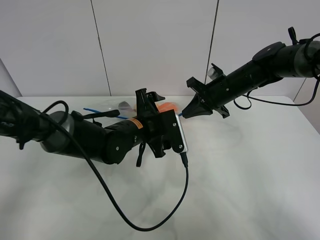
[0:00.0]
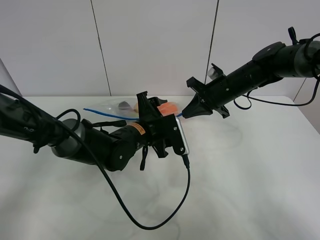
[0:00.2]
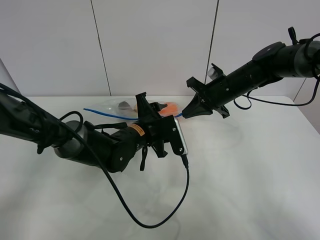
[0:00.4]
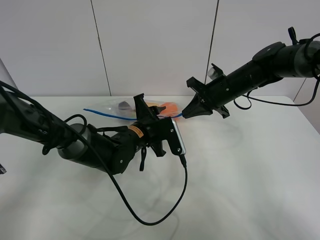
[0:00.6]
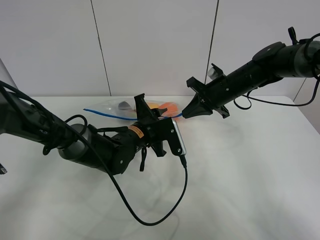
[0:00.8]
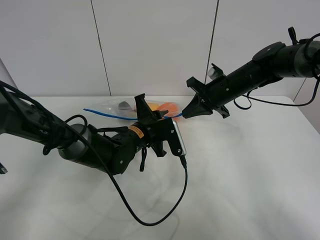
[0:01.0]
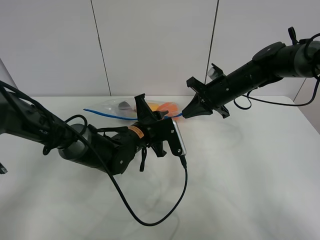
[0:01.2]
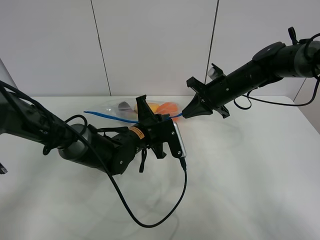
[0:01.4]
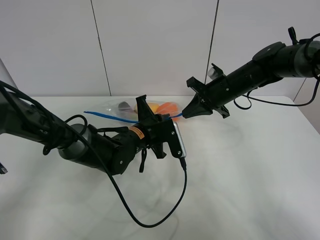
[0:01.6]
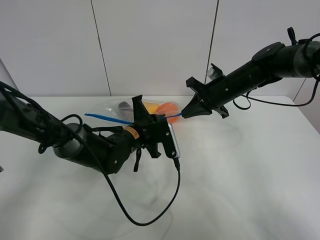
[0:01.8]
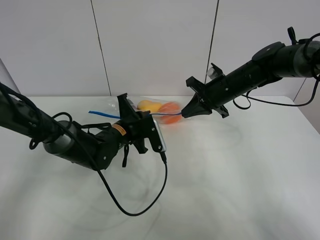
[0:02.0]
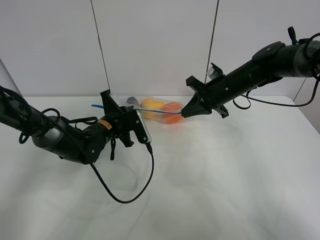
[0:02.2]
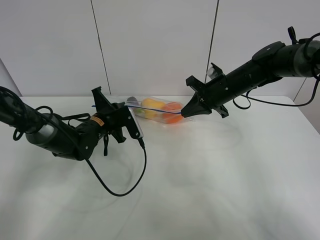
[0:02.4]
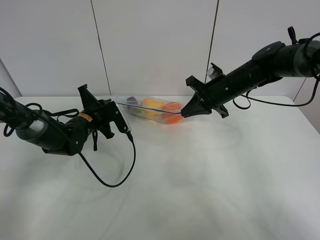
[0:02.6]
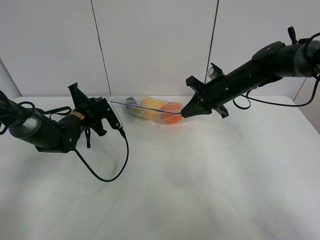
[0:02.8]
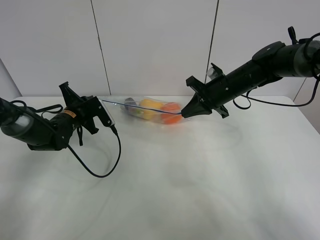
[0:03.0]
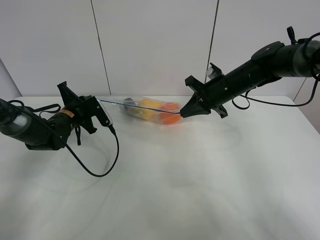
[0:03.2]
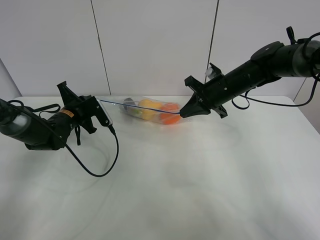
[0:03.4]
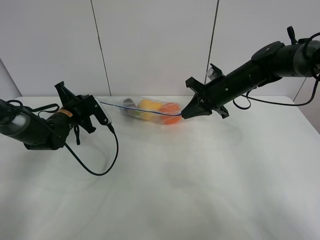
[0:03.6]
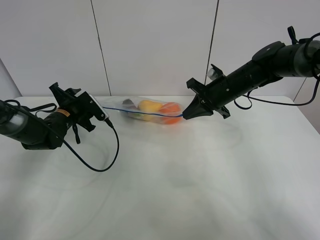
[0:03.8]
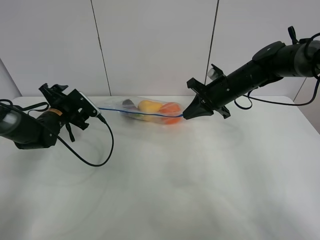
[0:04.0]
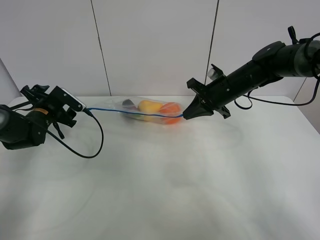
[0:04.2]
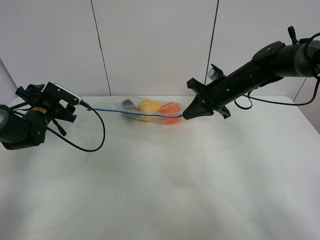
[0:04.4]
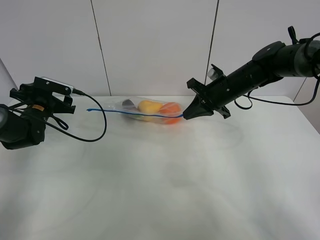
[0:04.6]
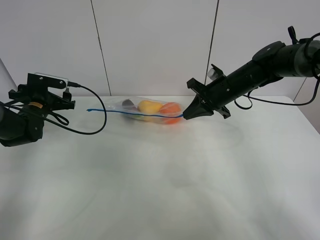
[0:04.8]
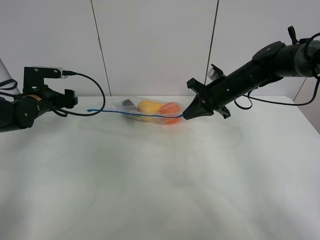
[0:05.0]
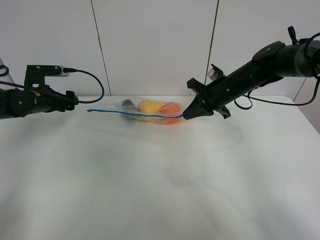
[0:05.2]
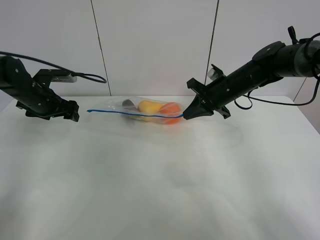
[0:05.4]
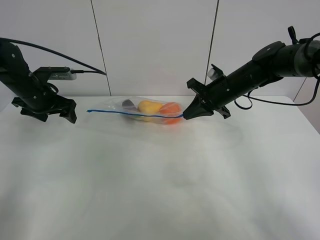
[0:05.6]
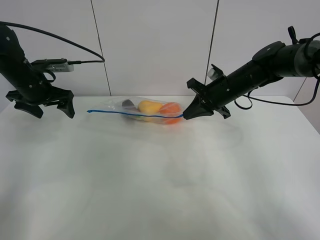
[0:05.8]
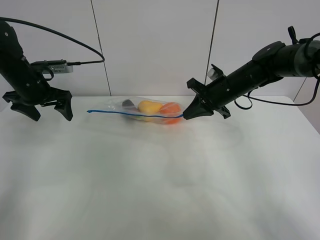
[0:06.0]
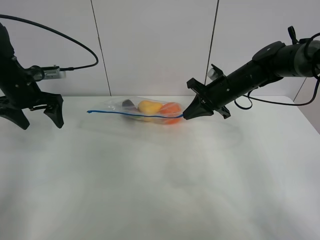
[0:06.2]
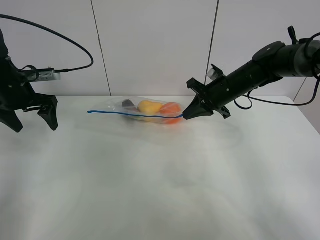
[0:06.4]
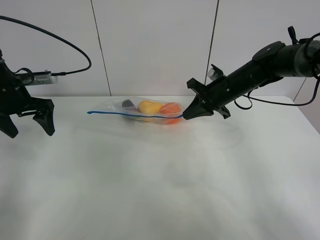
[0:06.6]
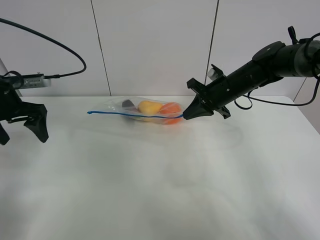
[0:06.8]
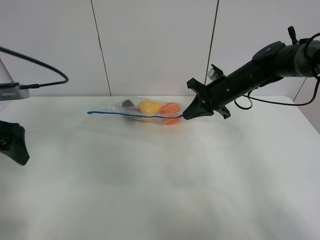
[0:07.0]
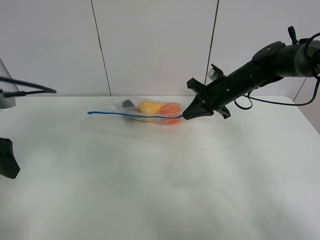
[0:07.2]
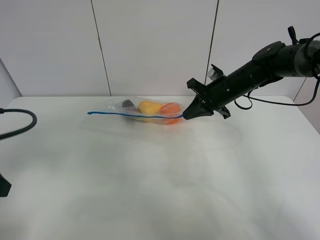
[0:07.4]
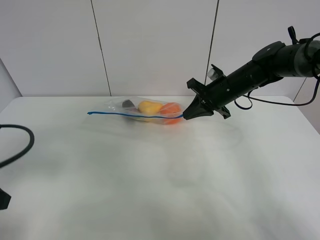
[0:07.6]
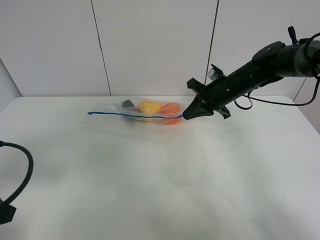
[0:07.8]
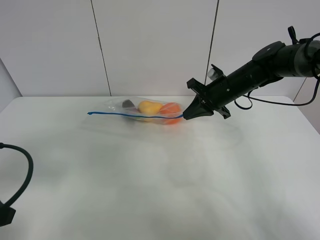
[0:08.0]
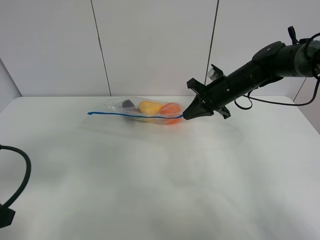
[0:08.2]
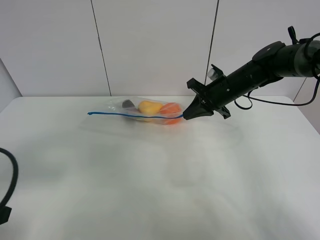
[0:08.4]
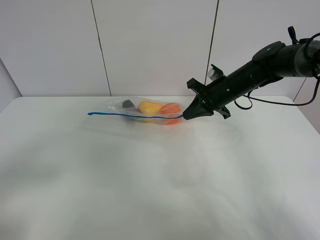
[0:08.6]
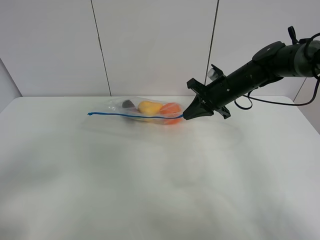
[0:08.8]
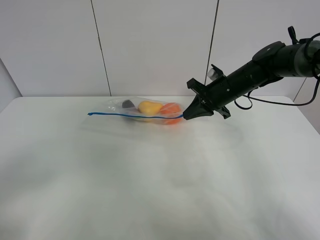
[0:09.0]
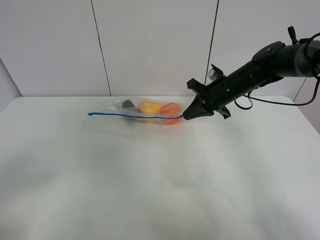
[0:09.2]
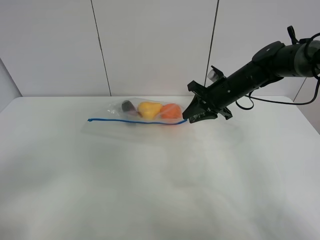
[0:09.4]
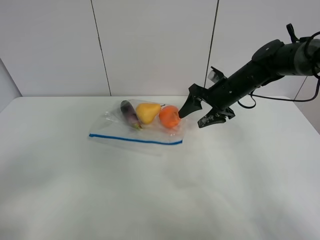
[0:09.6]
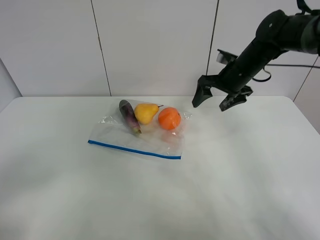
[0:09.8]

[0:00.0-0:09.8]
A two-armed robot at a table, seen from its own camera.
Step, 0:00.0 to 0:03.8: Pull the fruit bag with left gripper.
0:00.0 to 0:01.4: The left gripper closes its fingers.
0:01.4 to 0:02.8: The left gripper moves to the left, roughly 15 cm.
0:02.8 to 0:04.2: The left gripper goes approximately 10 cm to the left, and opens its fingers.
0:04.2 to 0:05.6: The left gripper is displaced upward by approximately 10 cm.
0:05.6 to 0:07.0: The left gripper goes approximately 15 cm backward.
0:07.0 to 0:08.4: The left gripper shifts roughly 15 cm backward.
0:08.4 to 0:09.8: The left gripper goes some 10 cm backward. Meanwhile the right gripper shifts by approximately 5 cm, and opens.

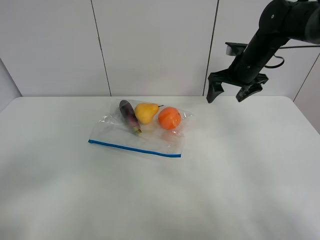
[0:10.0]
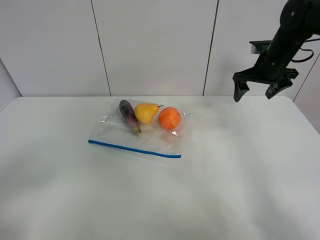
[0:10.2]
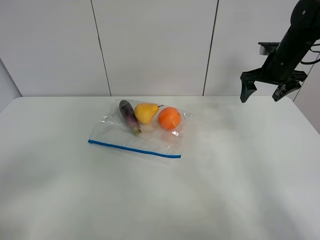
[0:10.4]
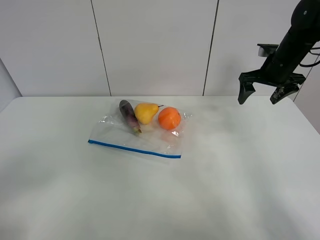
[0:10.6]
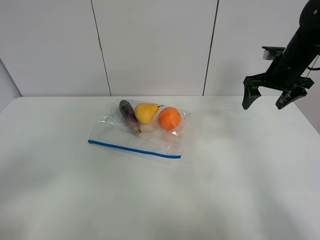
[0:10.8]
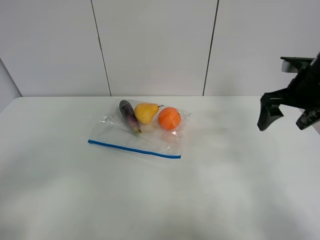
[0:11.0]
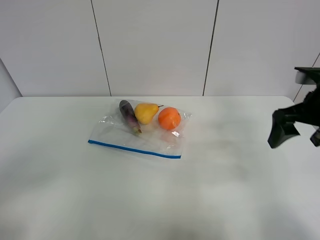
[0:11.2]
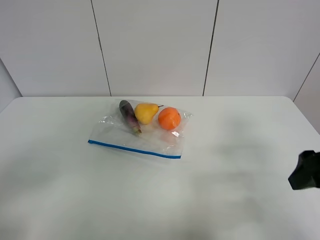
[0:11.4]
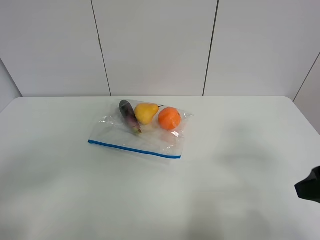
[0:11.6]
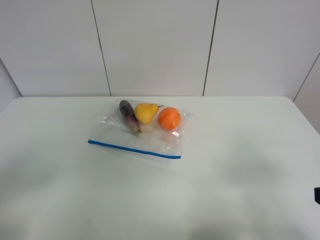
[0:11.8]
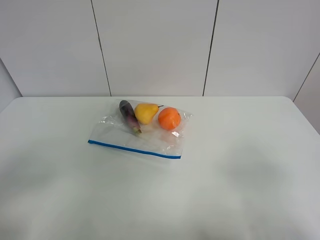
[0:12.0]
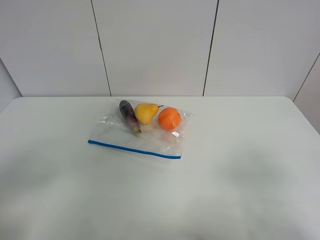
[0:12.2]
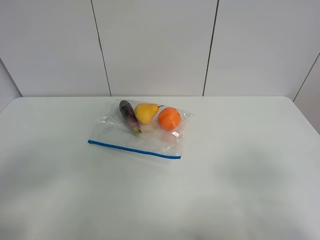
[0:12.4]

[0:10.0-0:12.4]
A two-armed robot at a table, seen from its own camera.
0:10.0 to 0:11.2: The right gripper travels backward by approximately 20 cm.
0:11.2 to 0:12.4: The right gripper travels backward by about 25 cm.

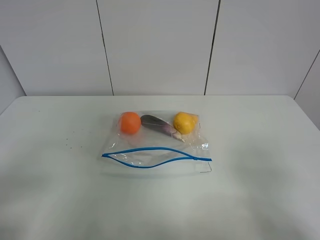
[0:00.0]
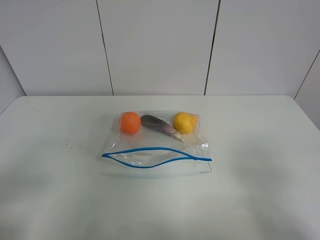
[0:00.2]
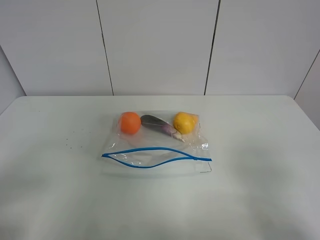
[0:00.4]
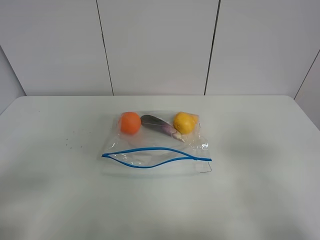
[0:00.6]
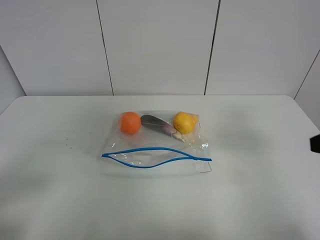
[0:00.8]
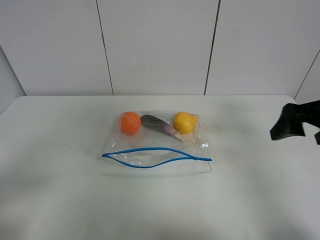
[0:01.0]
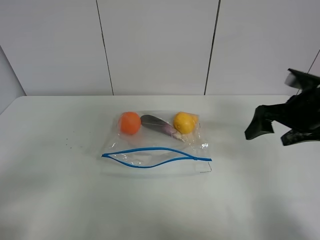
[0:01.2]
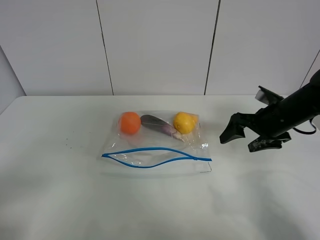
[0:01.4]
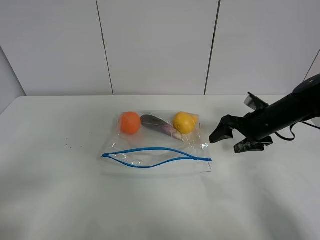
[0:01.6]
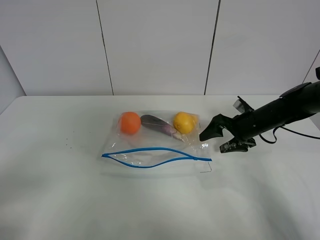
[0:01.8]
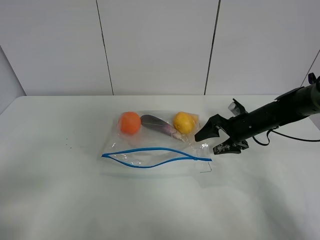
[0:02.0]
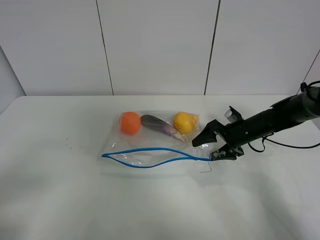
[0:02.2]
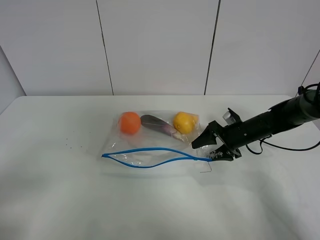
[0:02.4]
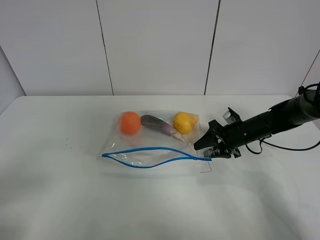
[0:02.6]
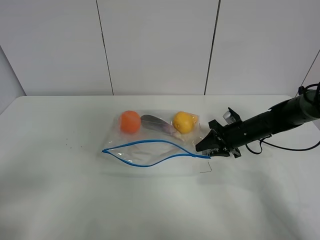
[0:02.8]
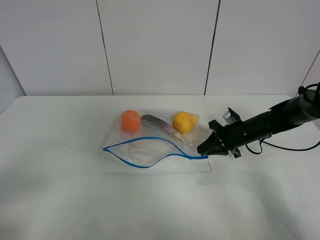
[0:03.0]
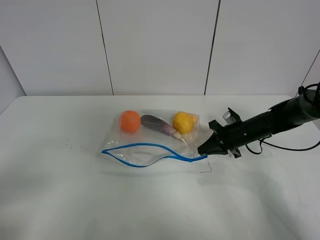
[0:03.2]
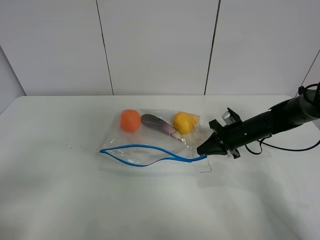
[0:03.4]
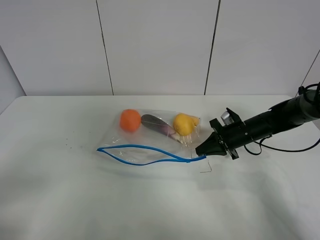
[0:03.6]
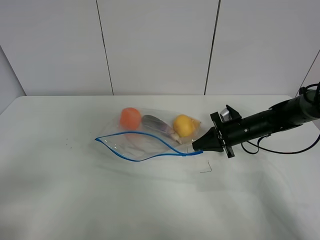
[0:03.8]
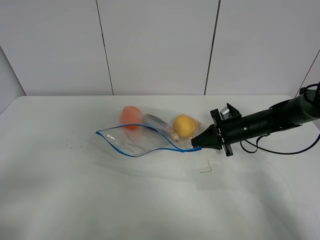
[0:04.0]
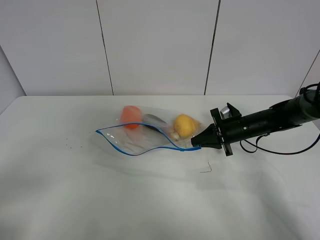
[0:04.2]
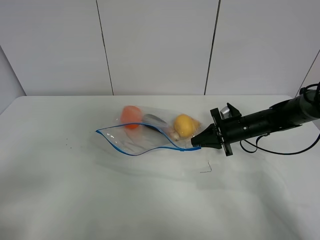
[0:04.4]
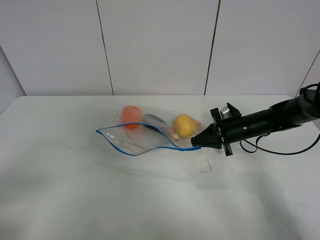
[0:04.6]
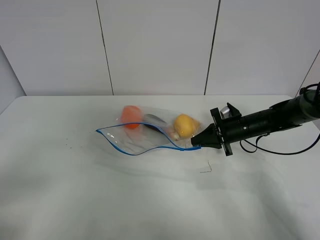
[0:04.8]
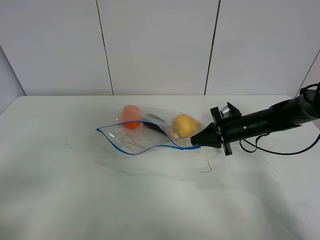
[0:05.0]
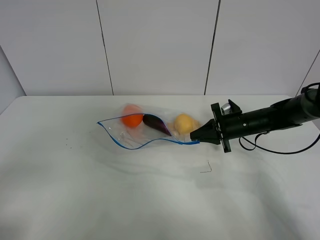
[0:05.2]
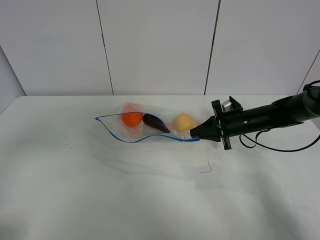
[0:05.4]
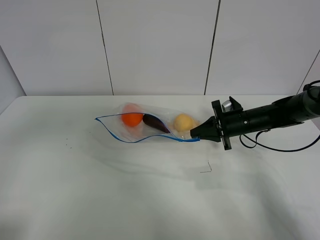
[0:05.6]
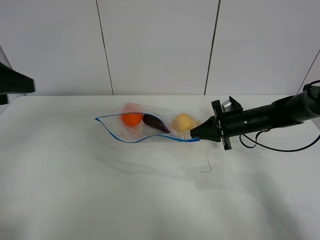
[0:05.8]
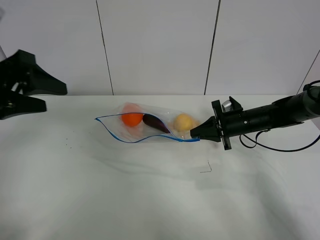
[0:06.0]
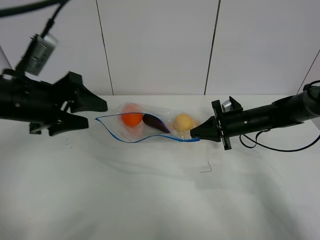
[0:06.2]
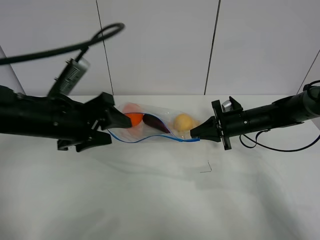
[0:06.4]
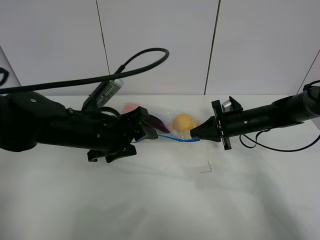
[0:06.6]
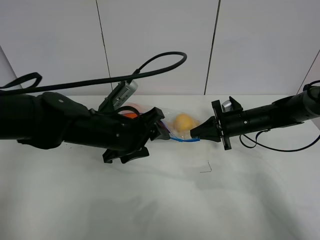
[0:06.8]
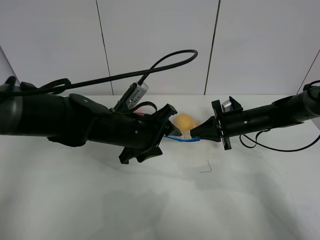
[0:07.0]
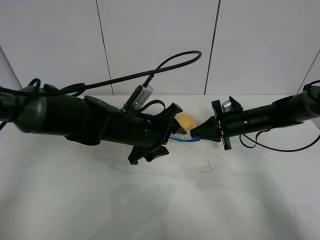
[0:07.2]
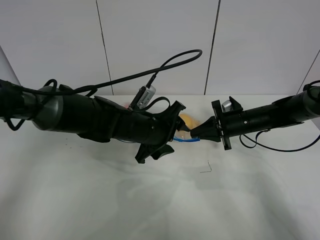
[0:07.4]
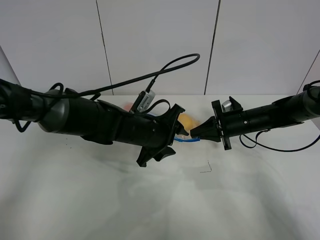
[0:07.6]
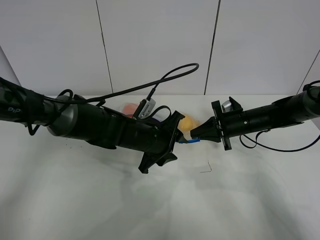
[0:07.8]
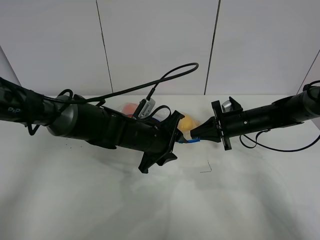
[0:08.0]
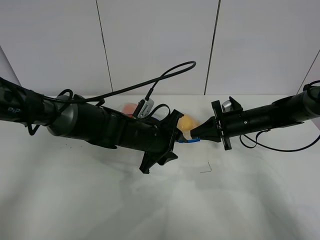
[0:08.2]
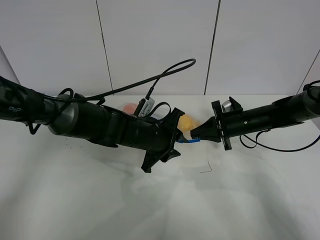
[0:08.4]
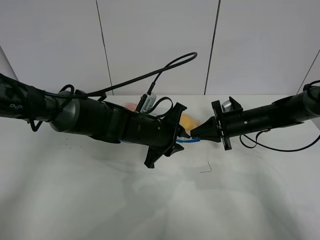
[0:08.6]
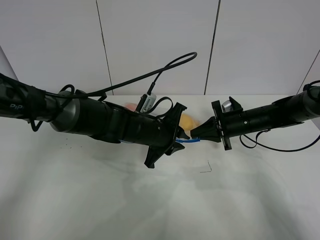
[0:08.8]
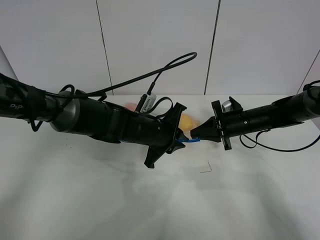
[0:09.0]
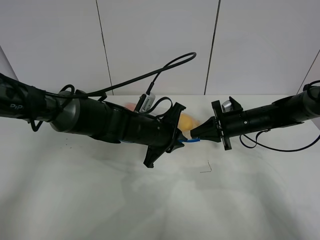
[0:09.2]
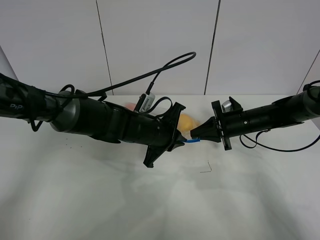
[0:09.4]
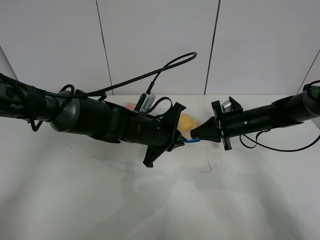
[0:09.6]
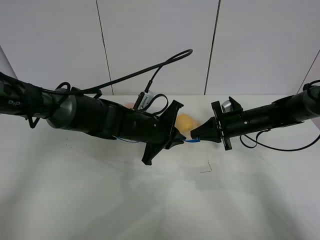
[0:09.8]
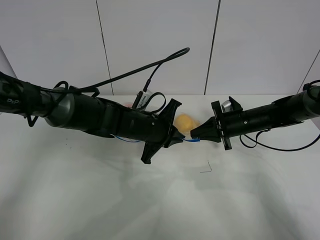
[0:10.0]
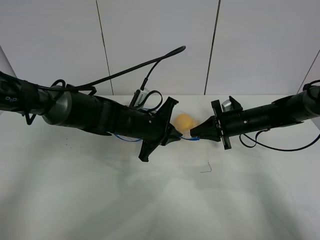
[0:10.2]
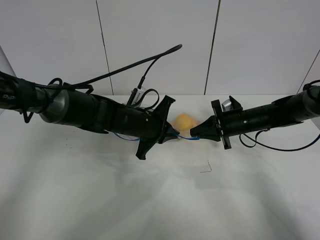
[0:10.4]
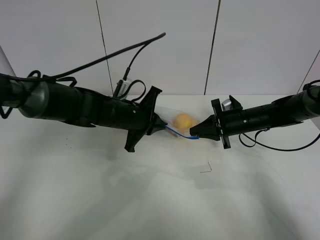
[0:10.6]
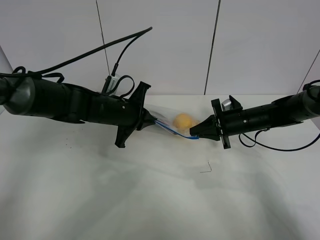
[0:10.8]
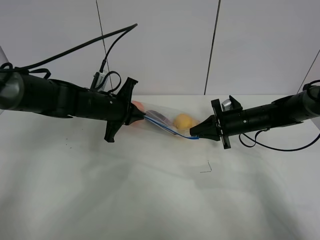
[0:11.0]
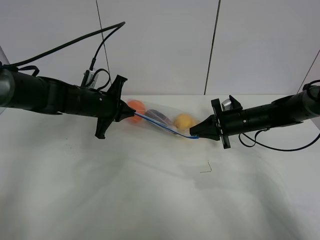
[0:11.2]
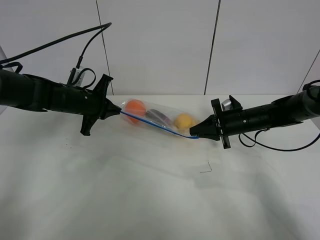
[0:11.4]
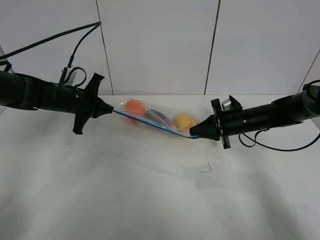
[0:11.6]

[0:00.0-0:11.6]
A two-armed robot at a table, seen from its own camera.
Step, 0:00.0 to 0:03.0: Grasp the fruit bag with right gripper.
Step, 0:03.2 to 0:05.2: Lift the fruit bag with your right gripper.
0:00.0 to 0:01.4: The right gripper shifts about 30 cm forward.
0:01.4 to 0:02.8: The right gripper heads downward, covering approximately 10 cm, and closes.
0:02.8 to 0:04.4: The right gripper closes up.
0:04.4 to 0:05.8: The left gripper moves forward, some 20 cm.
0:05.8 to 0:07.2: The left gripper moves to the right, downward and forward, some 30 cm.
0:07.2 to 0:08.8: The left gripper closes up.
0:08.8 to 0:10.2: The left gripper closes its fingers.
0:10.2 to 0:11.6: The left gripper travels to the left by some 20 cm.
